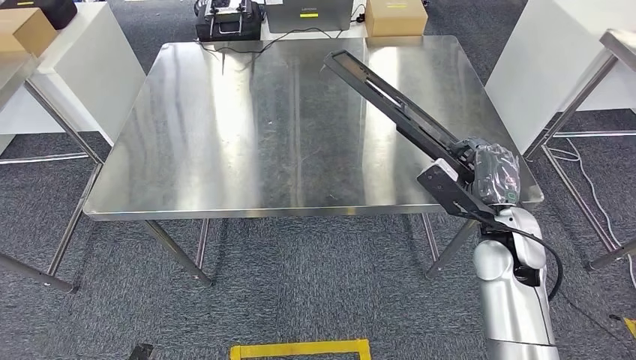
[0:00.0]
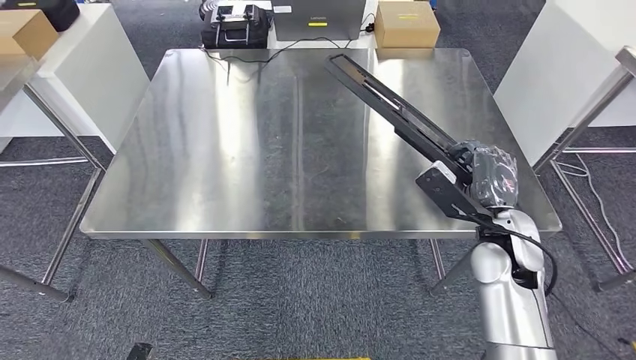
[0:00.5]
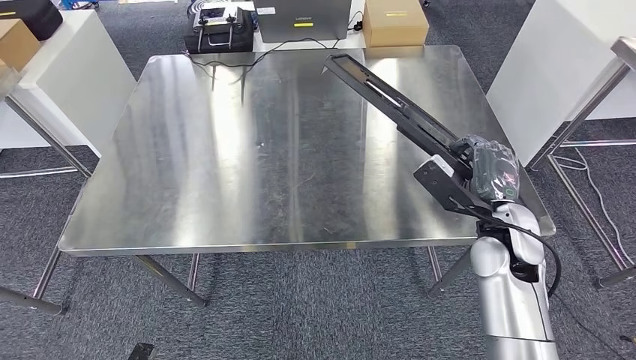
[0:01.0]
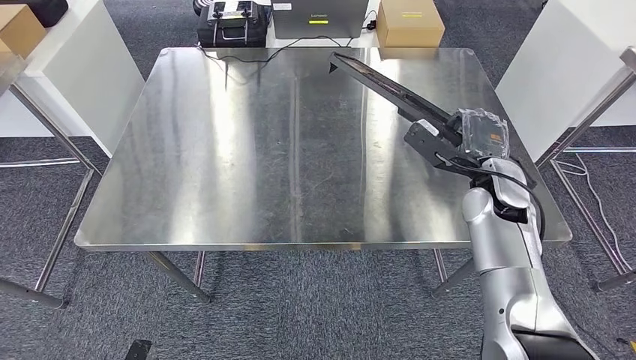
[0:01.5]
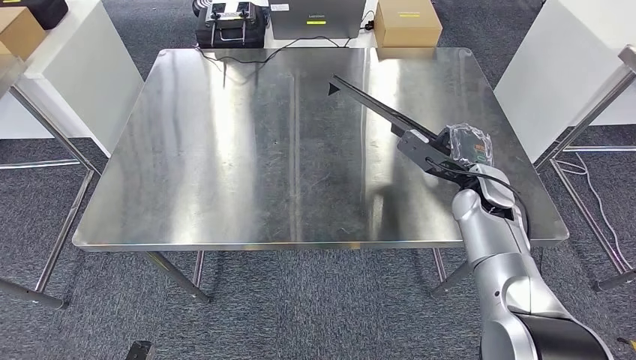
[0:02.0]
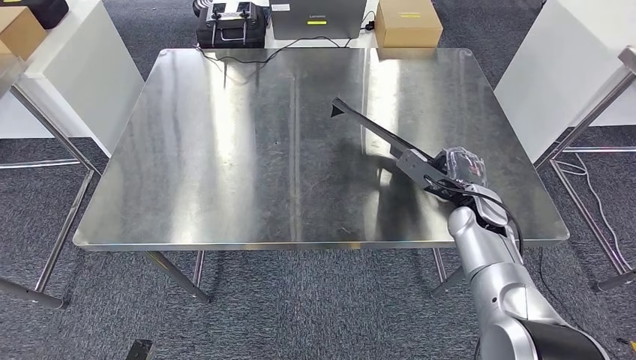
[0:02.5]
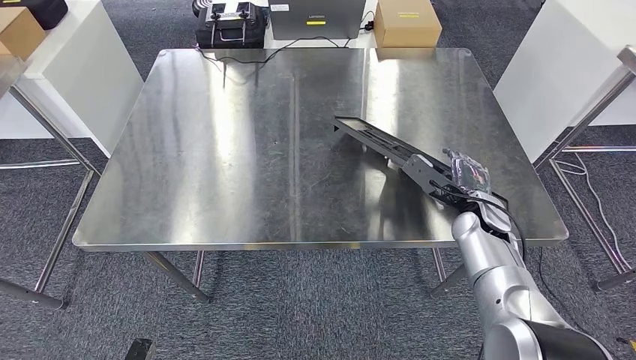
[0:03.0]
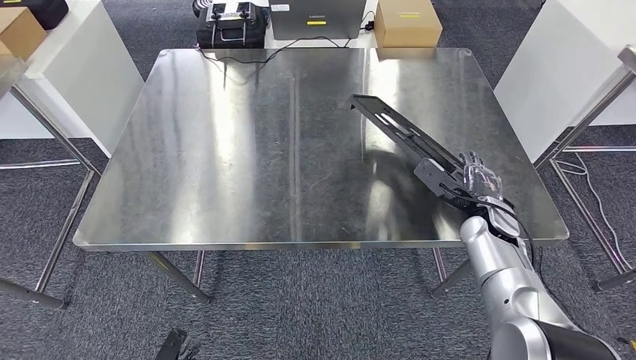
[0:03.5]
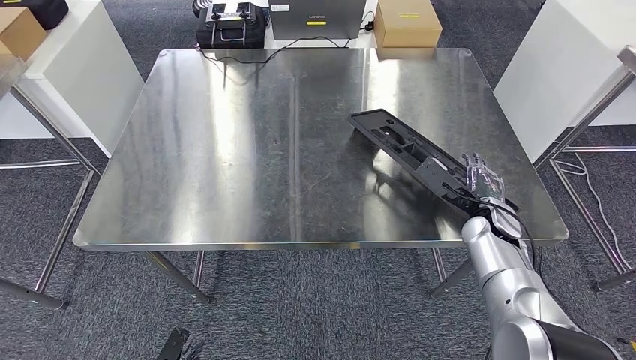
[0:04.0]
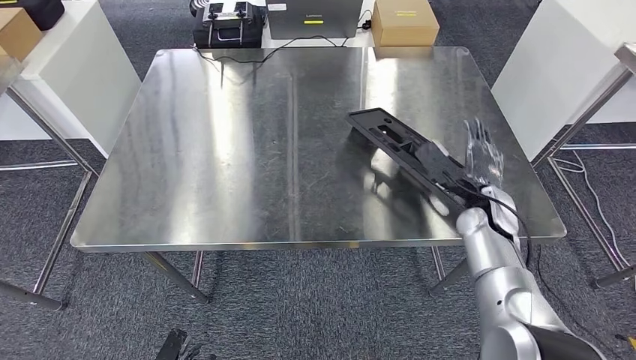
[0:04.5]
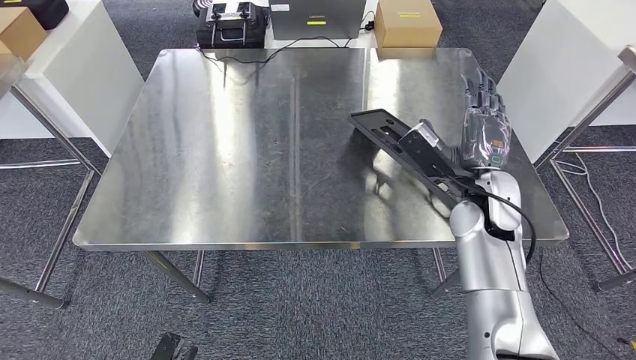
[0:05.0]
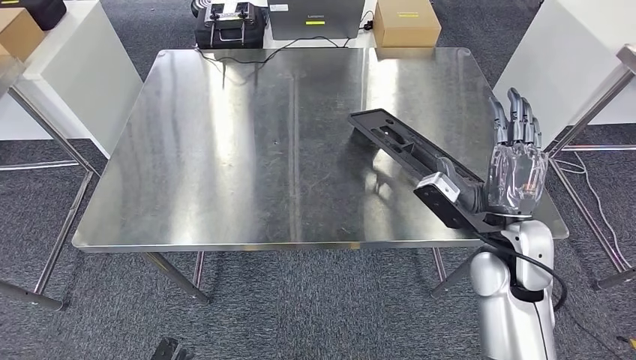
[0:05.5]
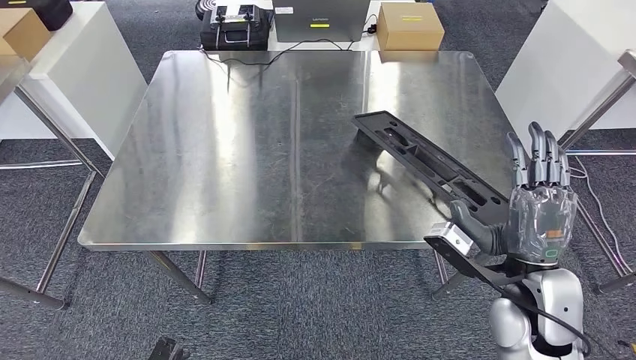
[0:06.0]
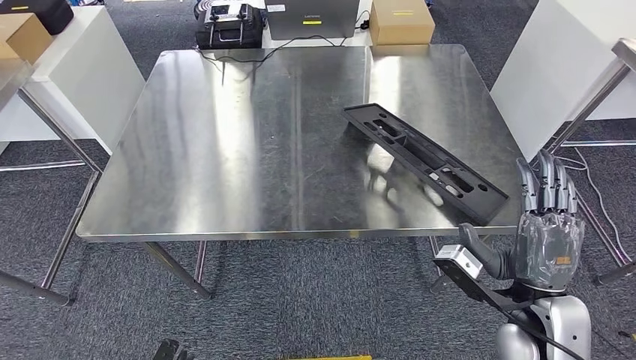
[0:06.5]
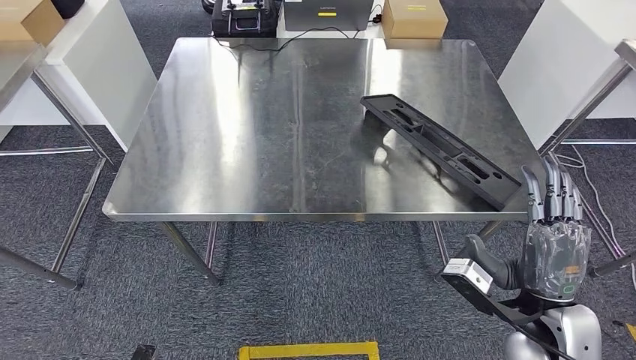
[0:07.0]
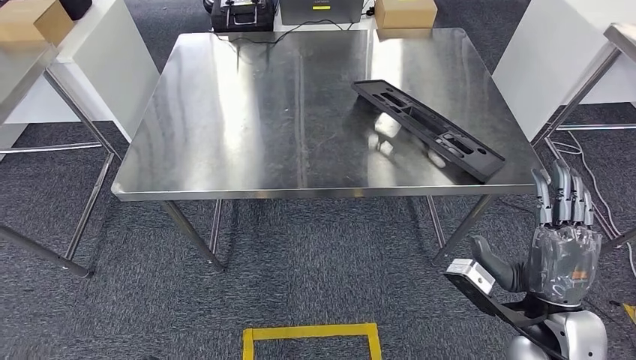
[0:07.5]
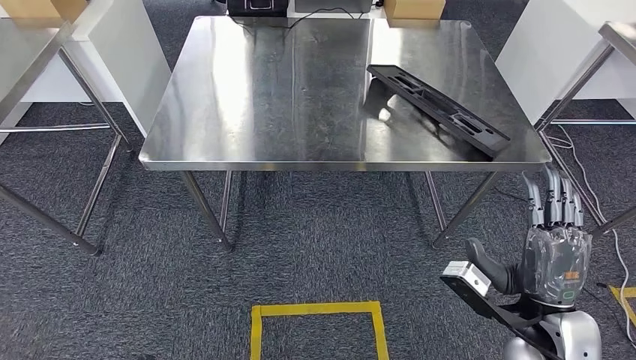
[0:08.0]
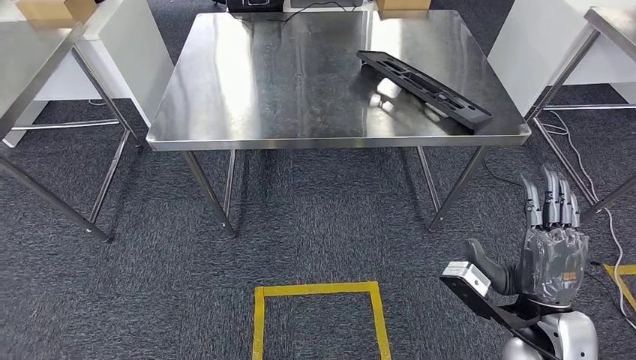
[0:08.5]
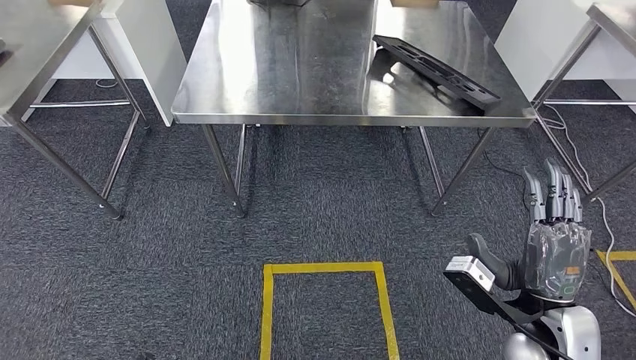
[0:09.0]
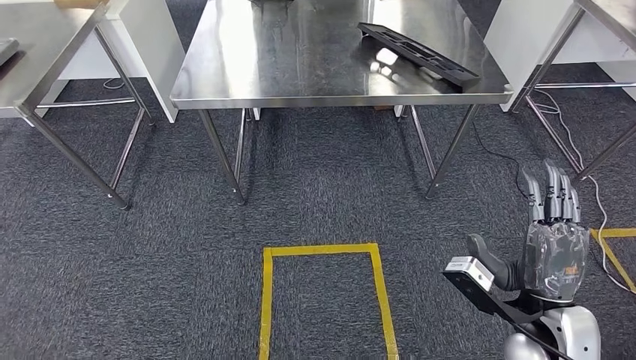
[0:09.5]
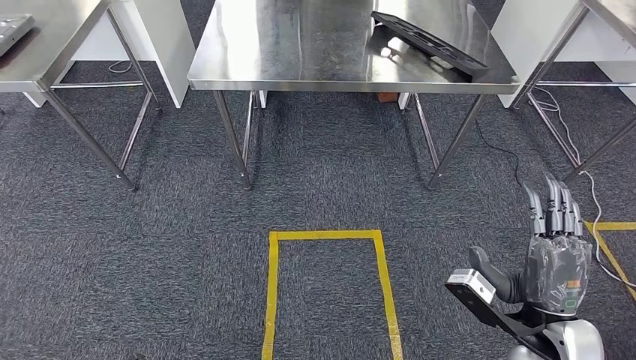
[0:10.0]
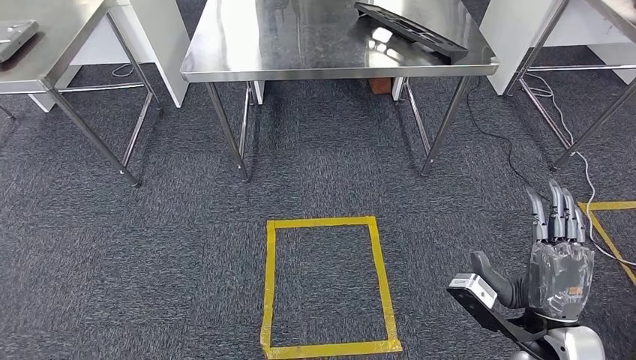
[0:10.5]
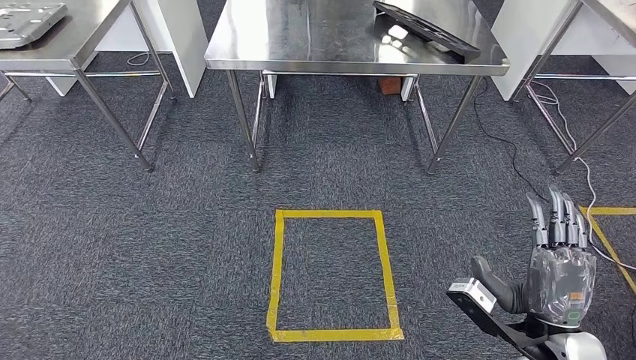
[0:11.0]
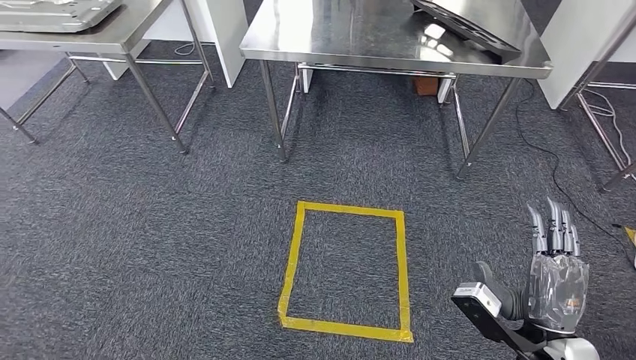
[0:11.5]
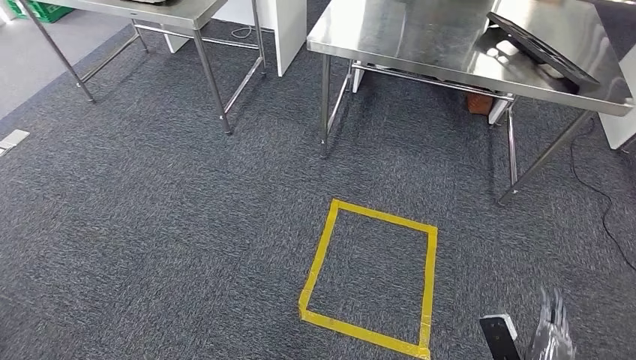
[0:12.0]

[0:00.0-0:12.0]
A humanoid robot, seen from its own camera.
Step, 0:00.0 to 0:09.5: Insert the large material into the corresponding slot on the workbench.
0:02.0 to 0:04.0: The left hand travels to the right by about 5 cm. The right hand travels downward and to the right by roughly 10 cm.
0:04.0 to 0:06.0: The right hand heads backward, to the left and upward, covering roughly 20 cm.

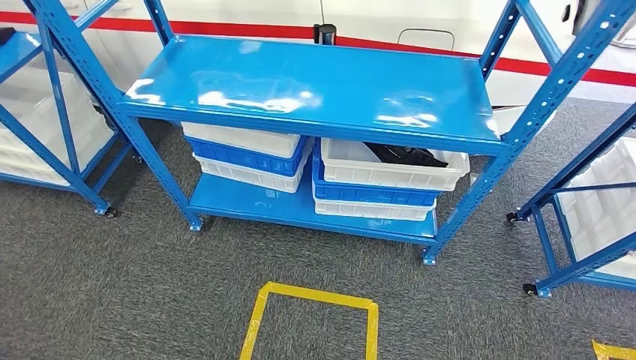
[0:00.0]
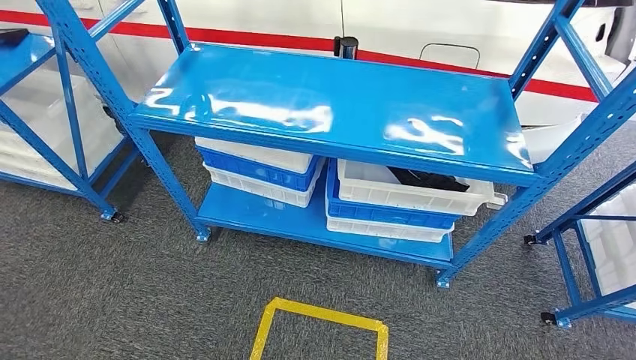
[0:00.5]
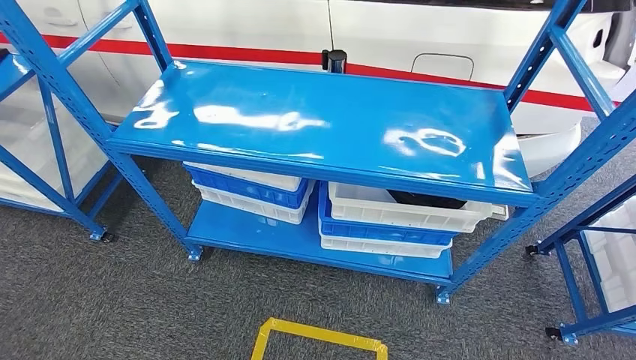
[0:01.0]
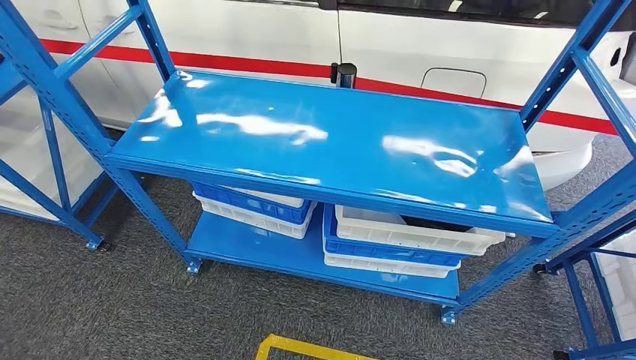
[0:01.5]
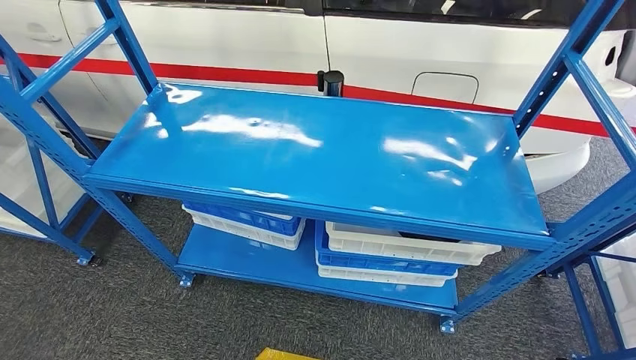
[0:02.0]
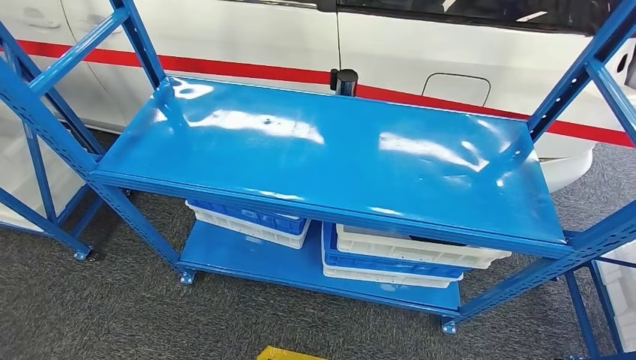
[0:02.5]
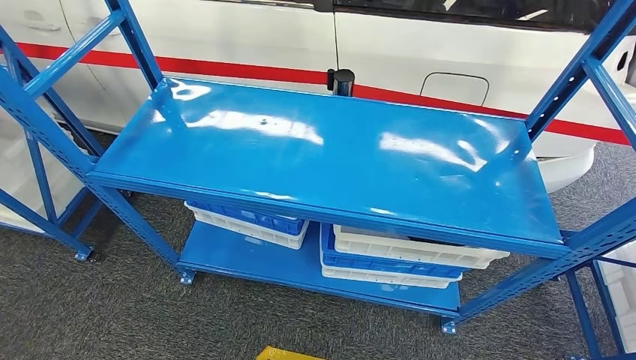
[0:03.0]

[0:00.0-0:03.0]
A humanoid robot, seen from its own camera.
Step, 0:00.0 to 0:03.0: Move to the initial position of the shelf.
